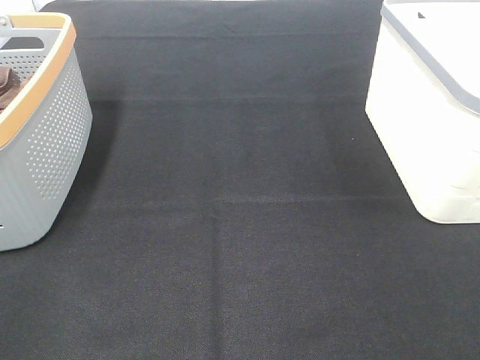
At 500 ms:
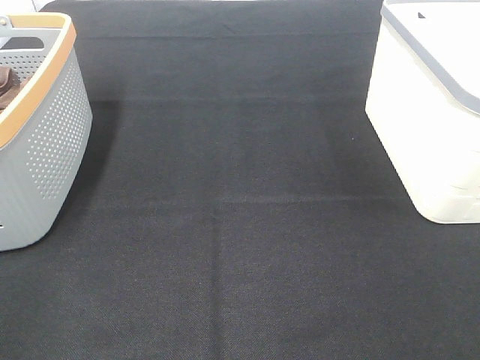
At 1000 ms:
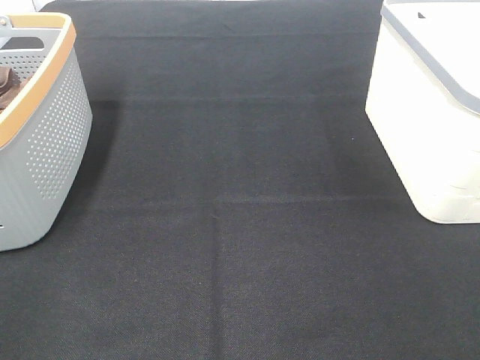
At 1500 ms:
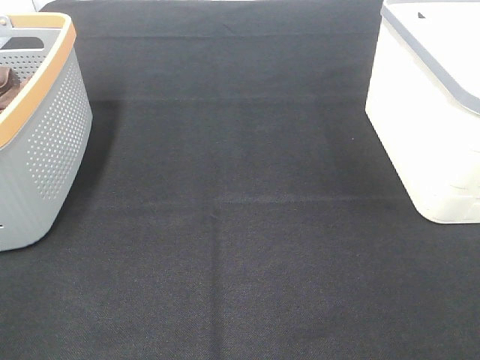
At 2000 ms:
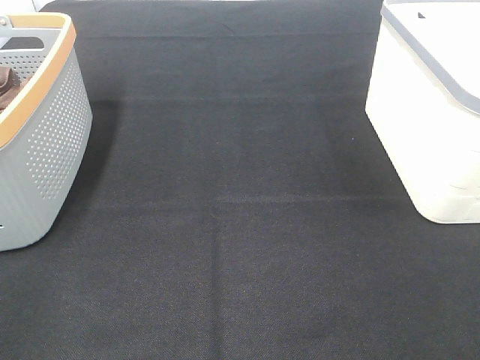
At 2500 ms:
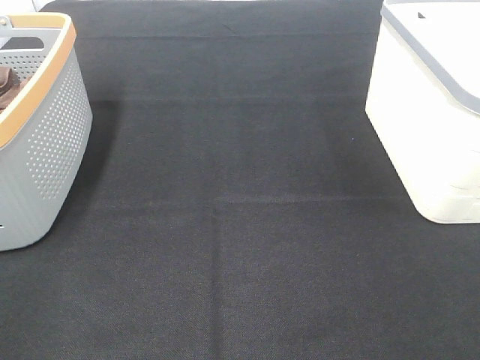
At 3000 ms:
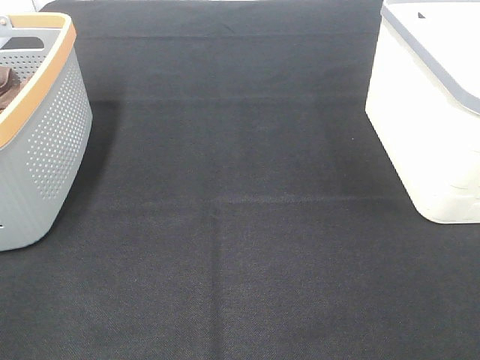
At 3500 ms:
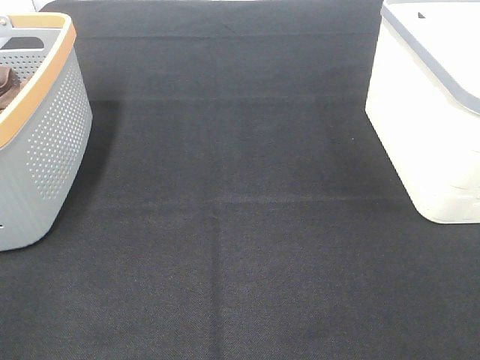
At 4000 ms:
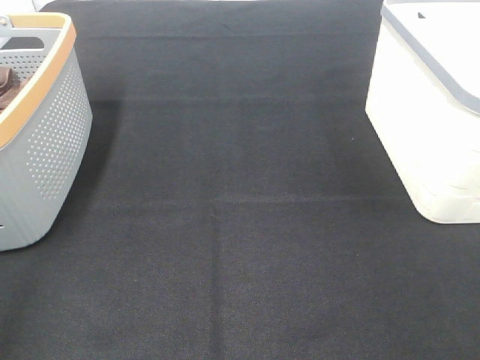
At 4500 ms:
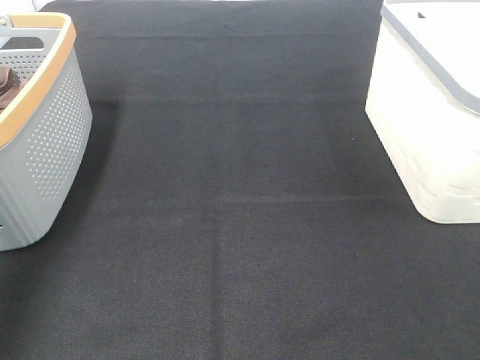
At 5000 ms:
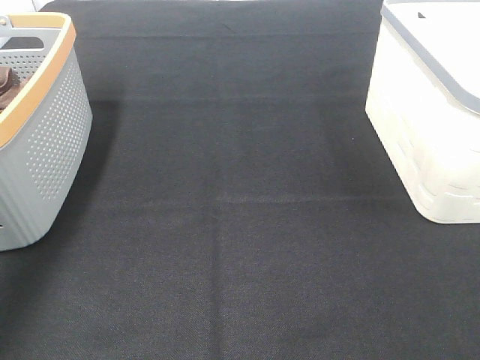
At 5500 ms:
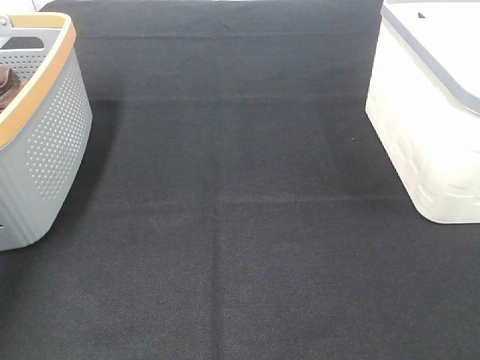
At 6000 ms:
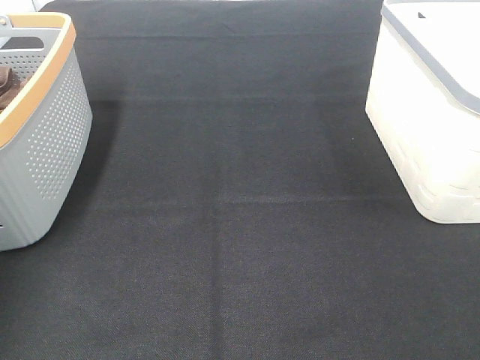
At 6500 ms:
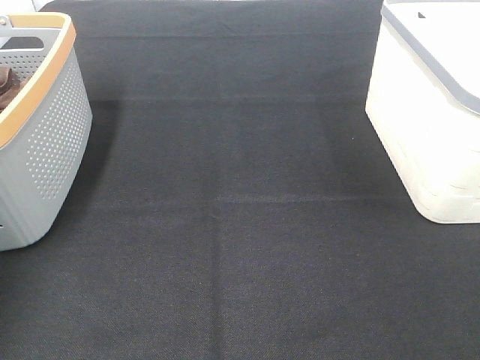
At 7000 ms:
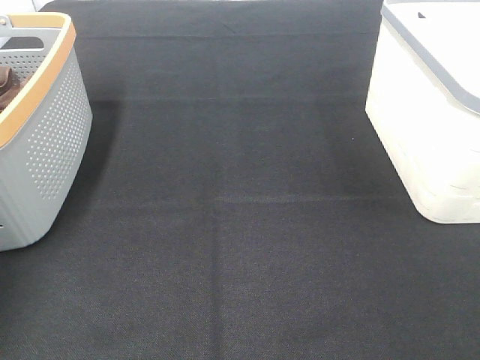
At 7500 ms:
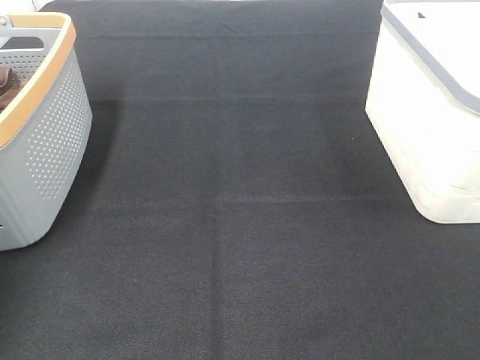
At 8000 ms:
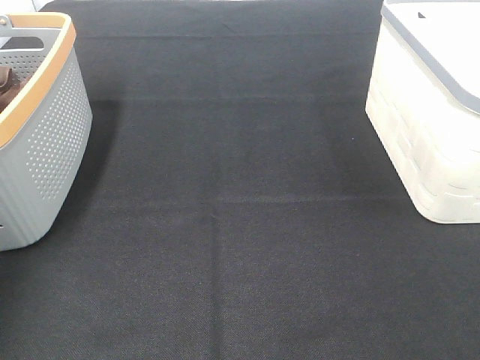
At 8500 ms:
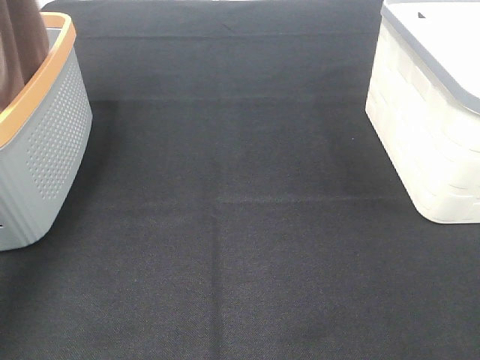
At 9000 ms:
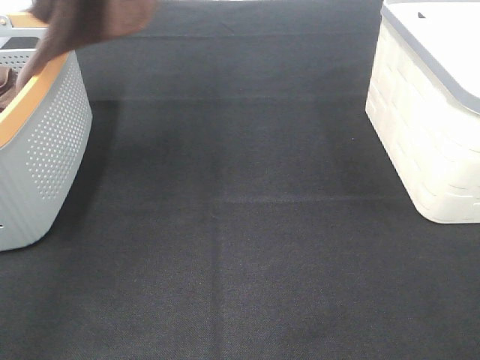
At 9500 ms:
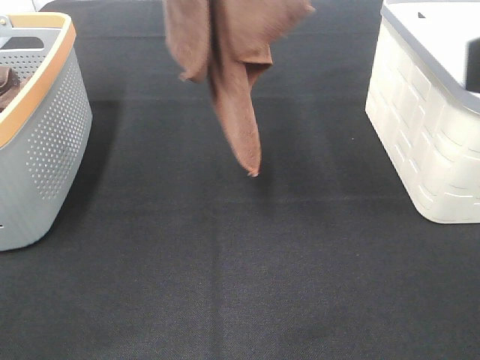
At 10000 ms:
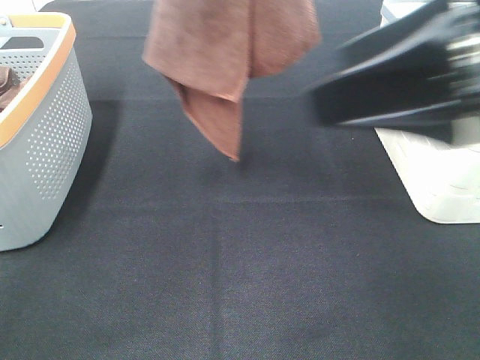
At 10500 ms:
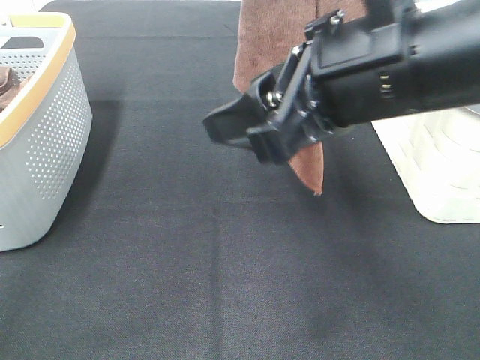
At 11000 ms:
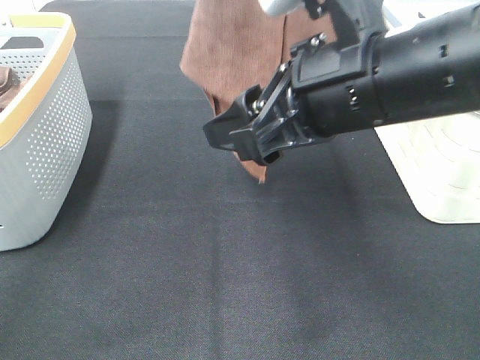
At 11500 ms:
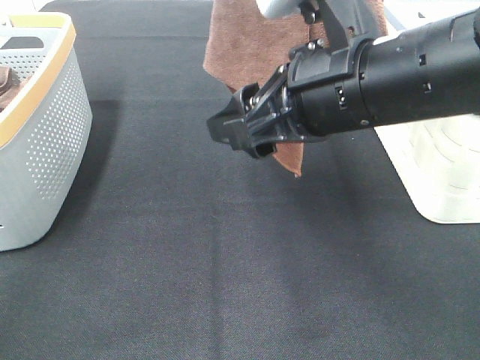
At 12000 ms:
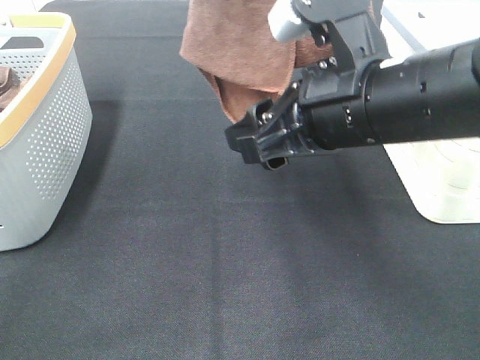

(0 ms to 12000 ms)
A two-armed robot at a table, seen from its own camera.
Task of the whole recording: Remove the towel and place it.
0 ms - 2000 ms: Both grippers stay about where they are.
8000 ms - 10000 ms: The right gripper heads forward and to the left, covering approximately 20 cm. The left gripper heads to the right, covering some 30 cm.
10000 ms - 12000 ms: The right gripper moves downward, forward and to the left, about 15 cm.

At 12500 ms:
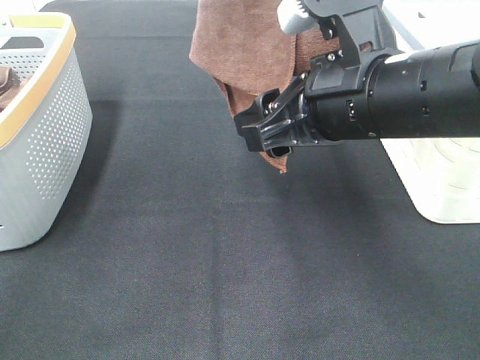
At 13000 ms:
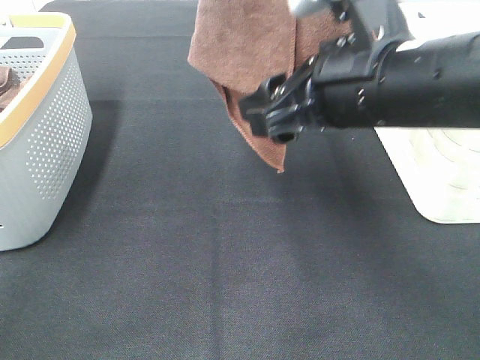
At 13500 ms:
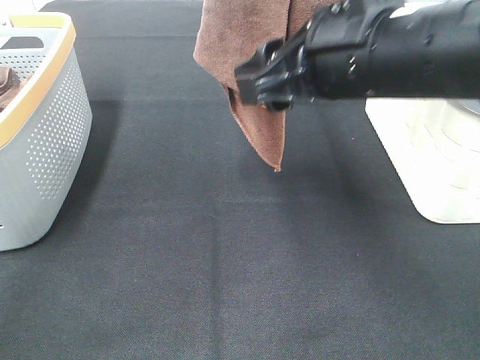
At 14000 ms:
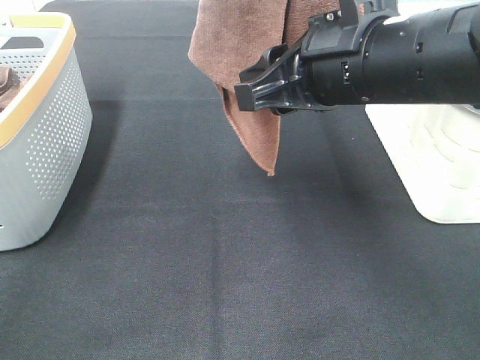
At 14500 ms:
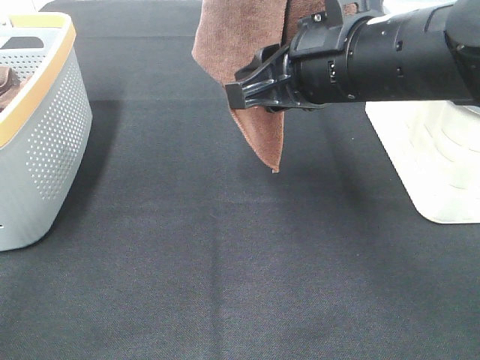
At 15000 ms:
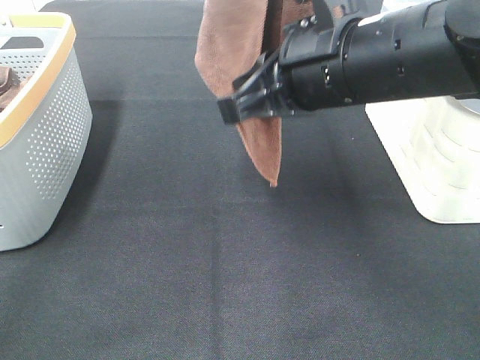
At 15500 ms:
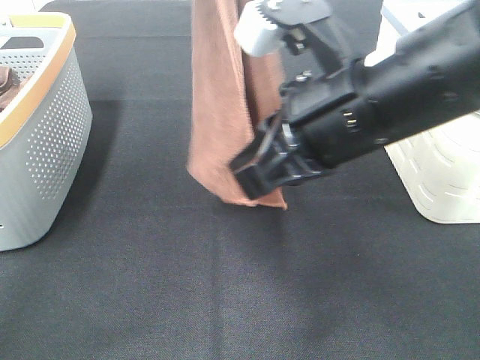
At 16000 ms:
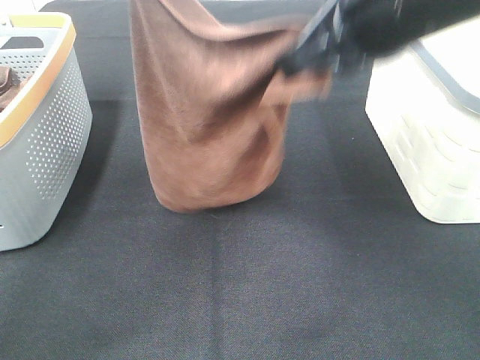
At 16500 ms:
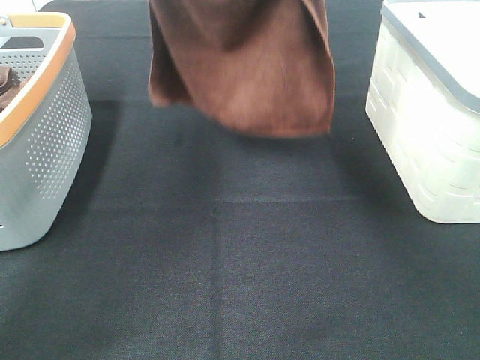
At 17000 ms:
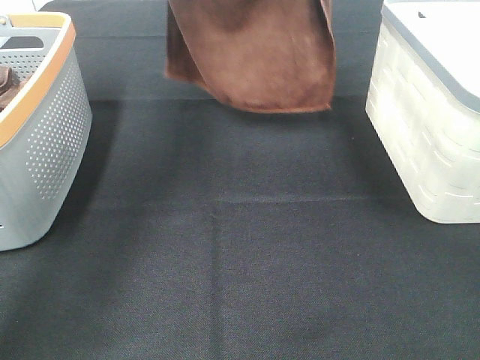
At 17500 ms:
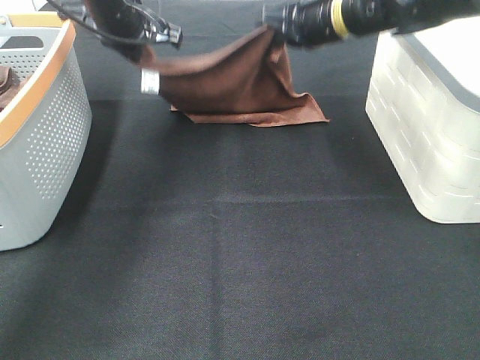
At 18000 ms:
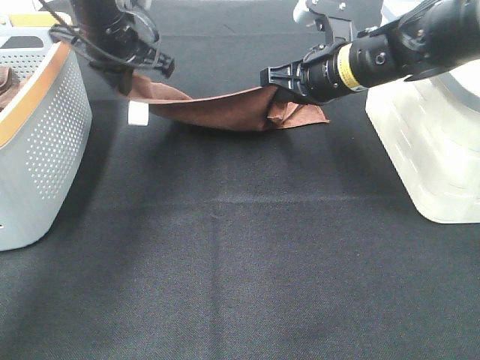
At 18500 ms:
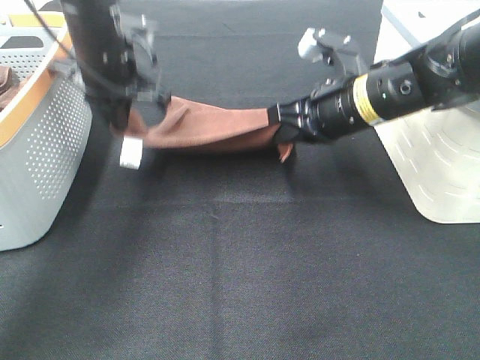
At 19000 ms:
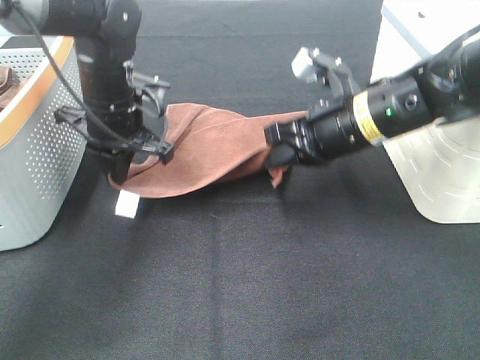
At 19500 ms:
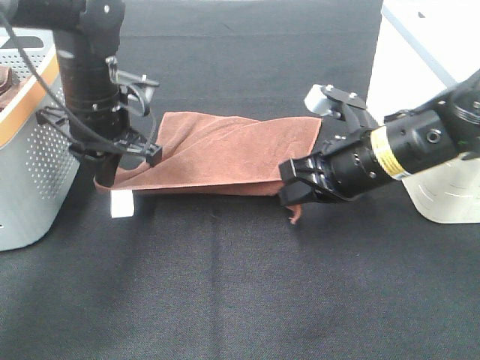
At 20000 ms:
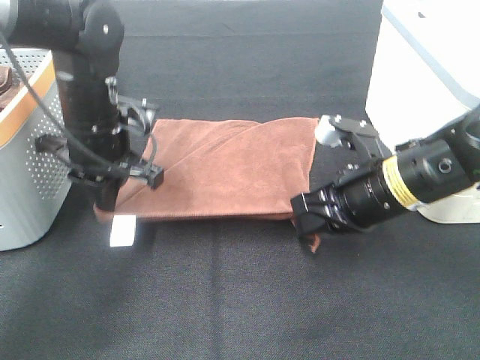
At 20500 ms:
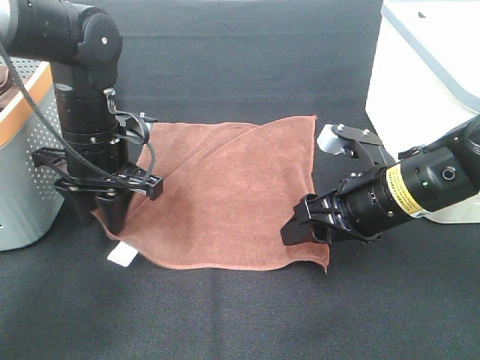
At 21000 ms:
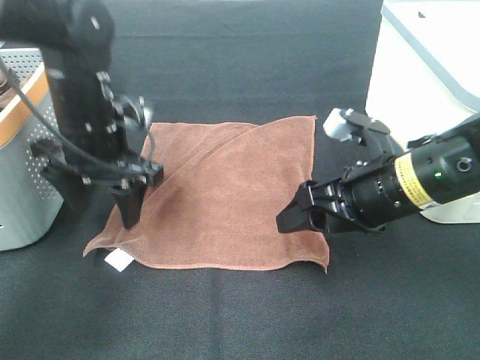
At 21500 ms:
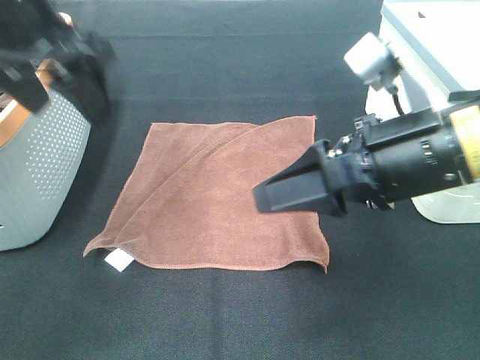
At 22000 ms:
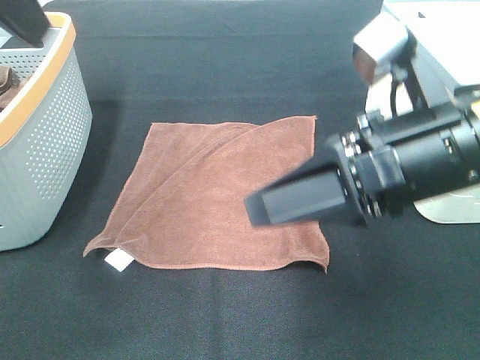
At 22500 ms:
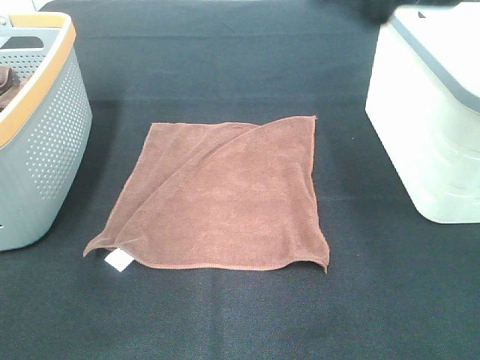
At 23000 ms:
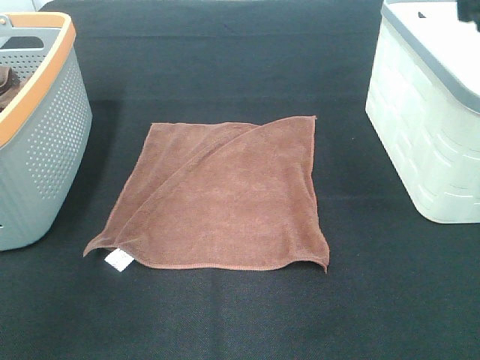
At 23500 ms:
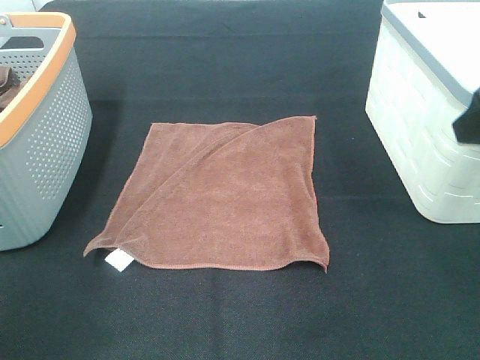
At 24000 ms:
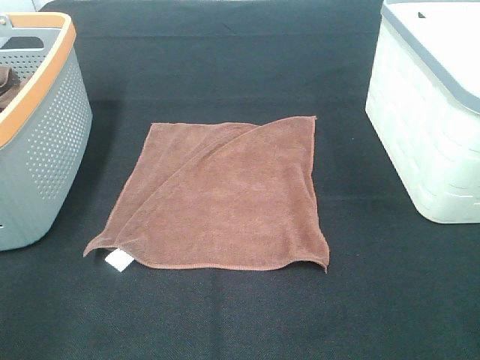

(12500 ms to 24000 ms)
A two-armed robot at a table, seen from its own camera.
Task of the whole recording: Remove the towel and place it.
Step, 13500 ms - 16500 ms: Left hand: spread the brown towel flat on the table.
Step, 13500 ms - 16500 ms: Right hand: spread the brown towel flat on the table.
12500 ms - 14500 ms: The right gripper closes its fingers.
14500 ms - 16500 ms: The left gripper travels forward, downward and to the left by some 15 cm; the right gripper shifts some 10 cm upward and forward, and closes its fingers.
16500 ms - 18500 ms: The grippers both shift downward by some 20 cm.
18500 ms - 20000 ms: The two grippers go approximately 5 cm backward.
20000 ms - 22000 ms: The left gripper heads upward and backward, covering about 30 cm, and opens. Meanwhile the right gripper shifts roughly 15 cm upward and backward, and opens its fingers.
22000 ms - 24000 ms: The right gripper is displaced to the right and backward by approximately 15 cm; the left gripper travels backward, downward and to the left by roughly 25 cm.

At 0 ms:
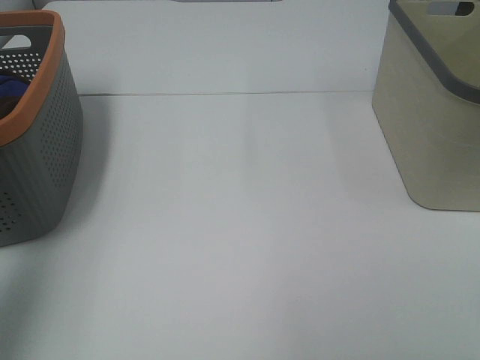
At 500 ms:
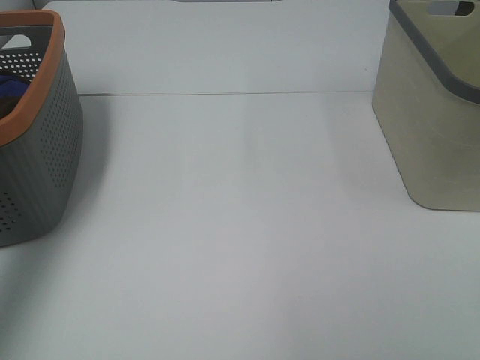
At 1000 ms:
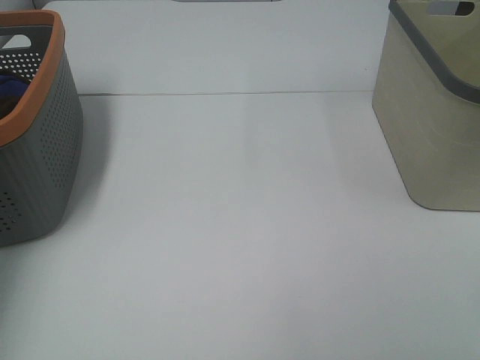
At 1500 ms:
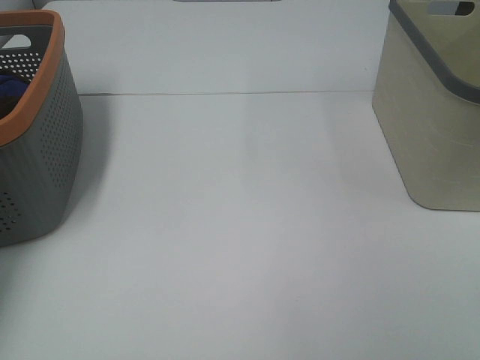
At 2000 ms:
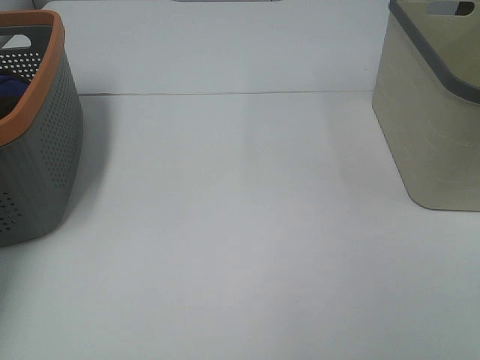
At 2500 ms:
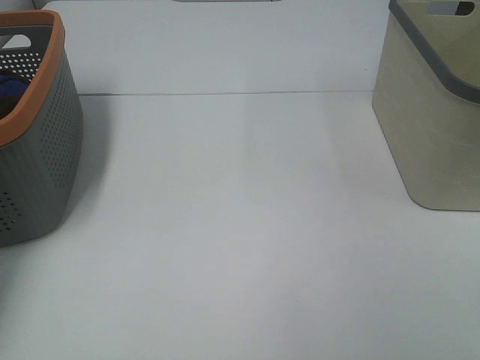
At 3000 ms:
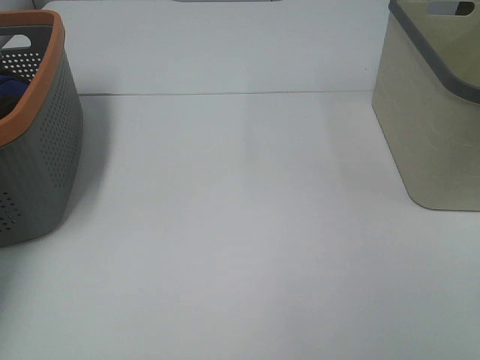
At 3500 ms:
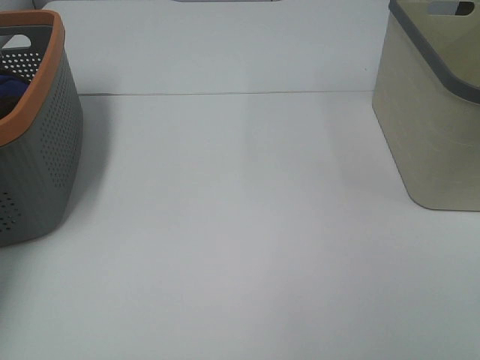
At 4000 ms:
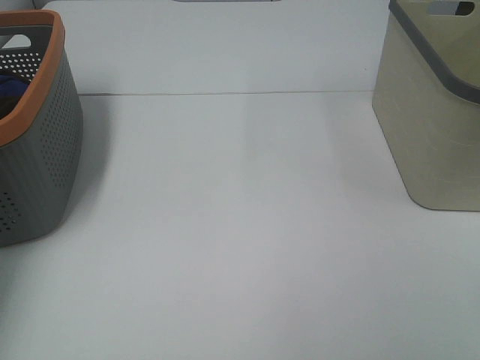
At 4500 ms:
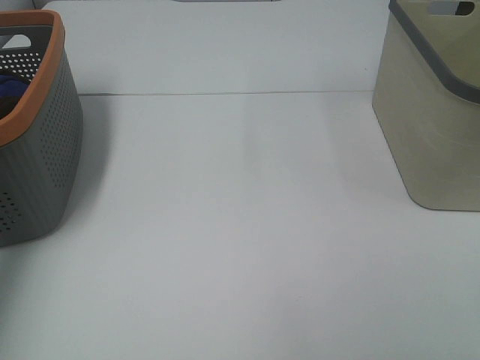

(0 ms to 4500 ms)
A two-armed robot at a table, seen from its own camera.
Task of the whole recording: Remove the towel and place it.
0 ms - 2000 ms: The left gripper heads forward and downward, covering some 35 cm.
